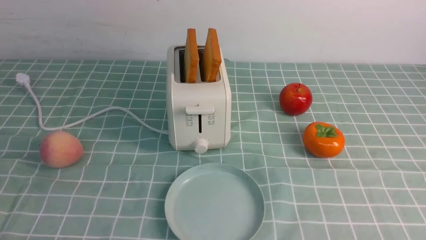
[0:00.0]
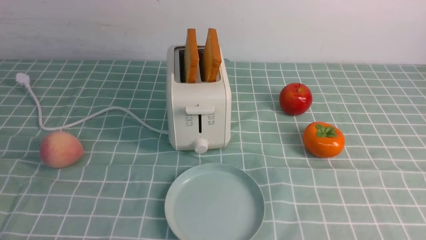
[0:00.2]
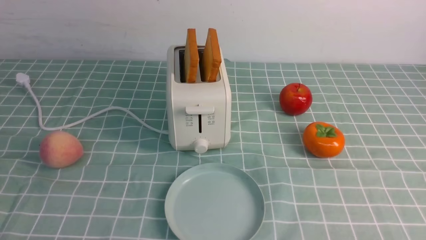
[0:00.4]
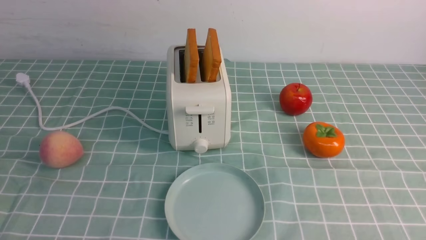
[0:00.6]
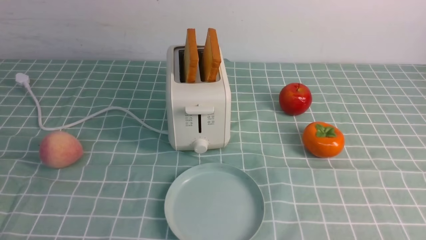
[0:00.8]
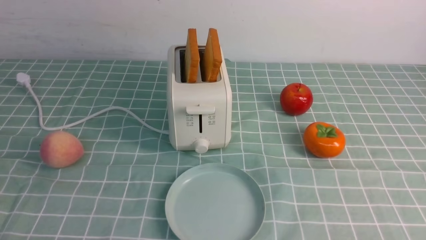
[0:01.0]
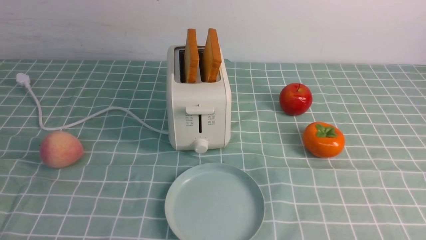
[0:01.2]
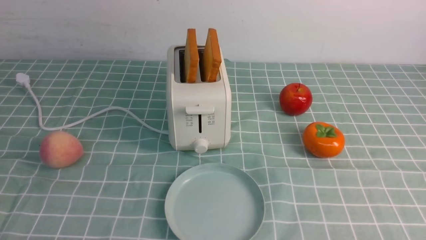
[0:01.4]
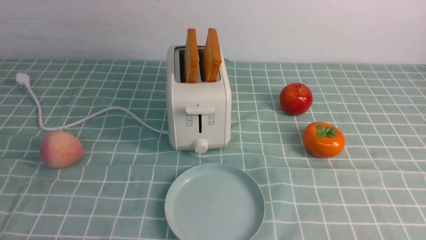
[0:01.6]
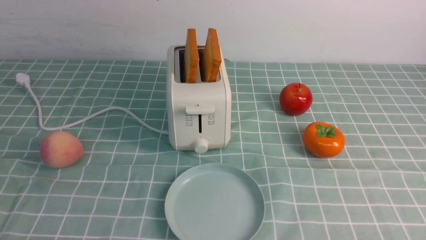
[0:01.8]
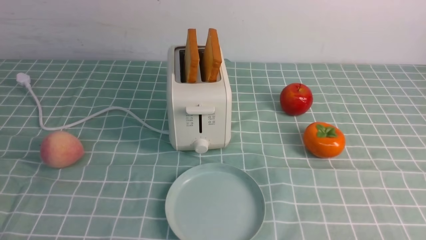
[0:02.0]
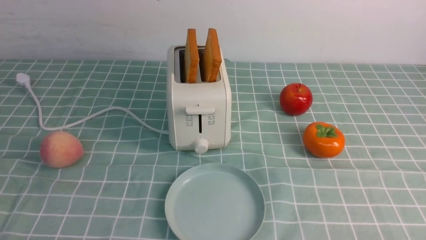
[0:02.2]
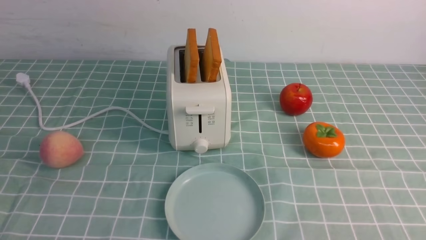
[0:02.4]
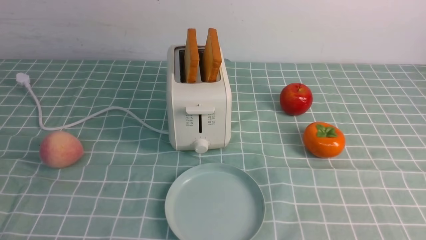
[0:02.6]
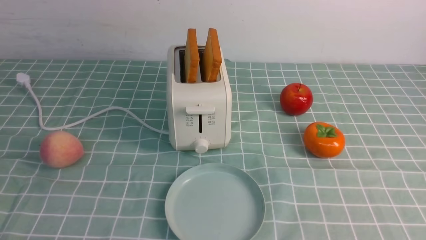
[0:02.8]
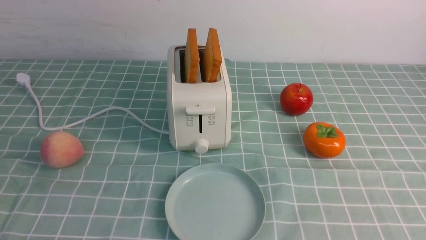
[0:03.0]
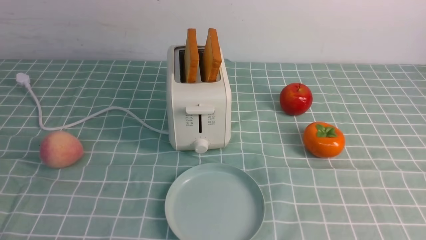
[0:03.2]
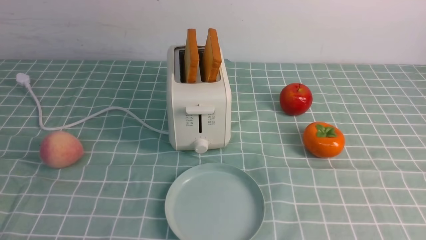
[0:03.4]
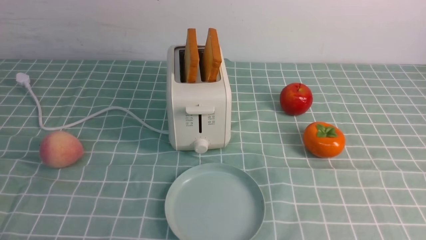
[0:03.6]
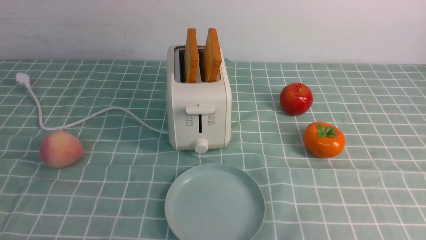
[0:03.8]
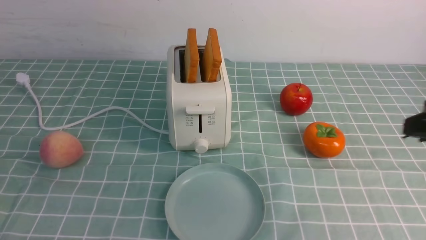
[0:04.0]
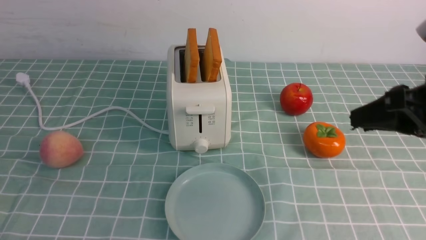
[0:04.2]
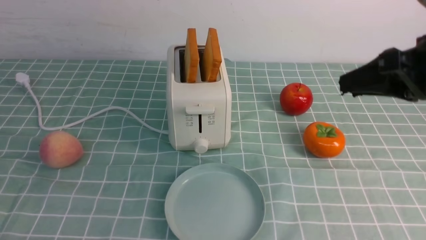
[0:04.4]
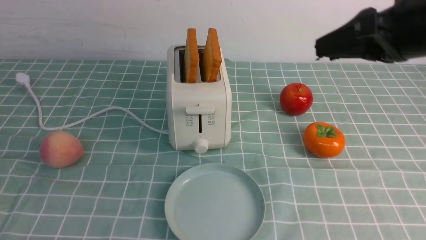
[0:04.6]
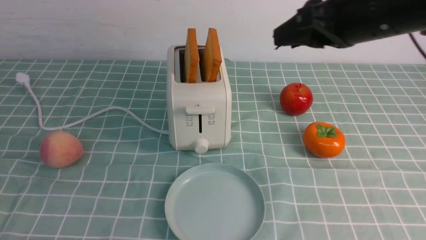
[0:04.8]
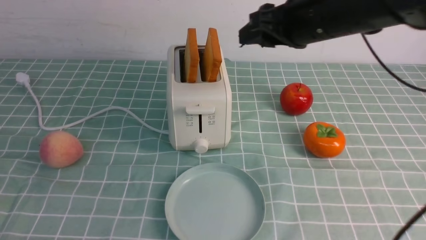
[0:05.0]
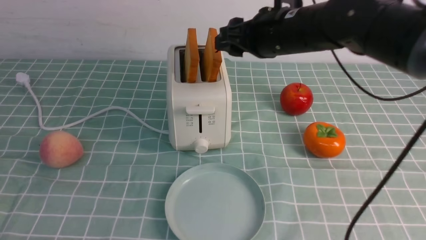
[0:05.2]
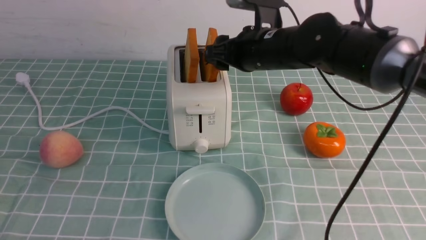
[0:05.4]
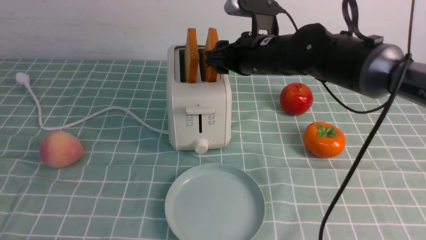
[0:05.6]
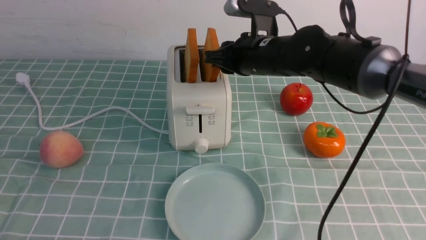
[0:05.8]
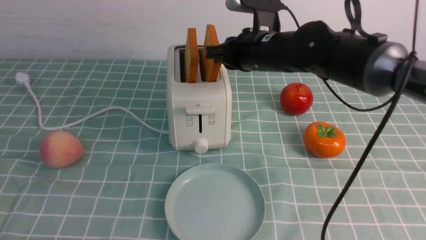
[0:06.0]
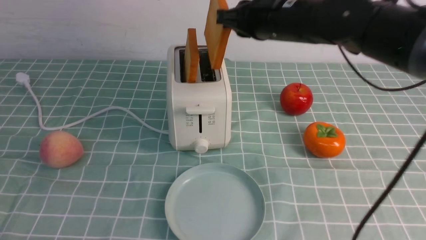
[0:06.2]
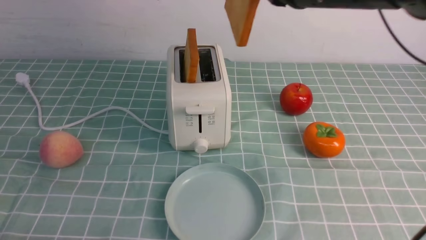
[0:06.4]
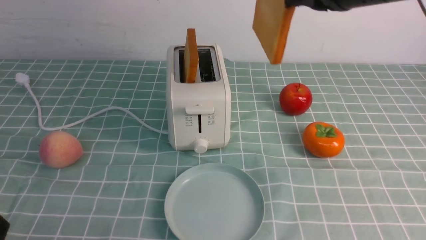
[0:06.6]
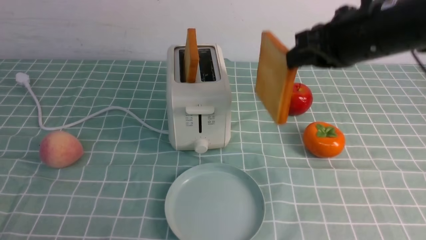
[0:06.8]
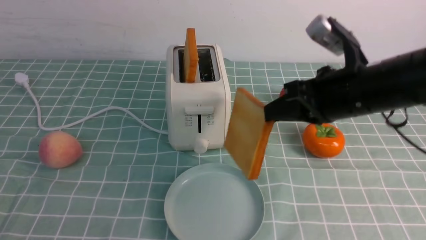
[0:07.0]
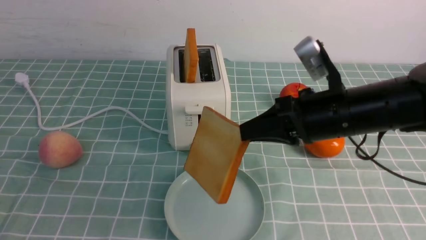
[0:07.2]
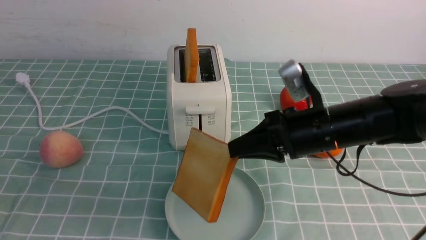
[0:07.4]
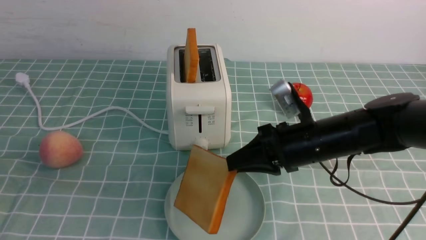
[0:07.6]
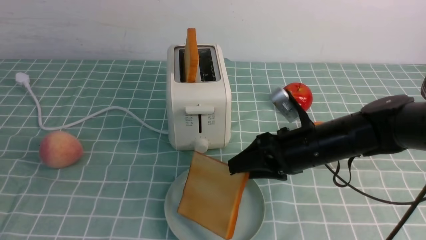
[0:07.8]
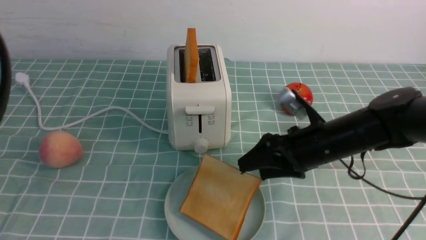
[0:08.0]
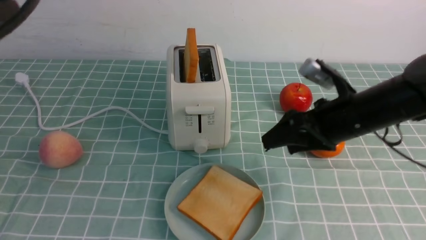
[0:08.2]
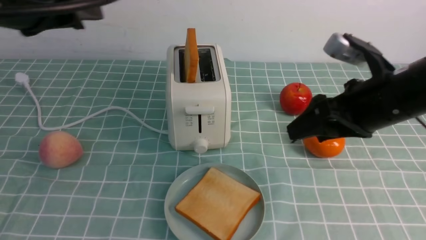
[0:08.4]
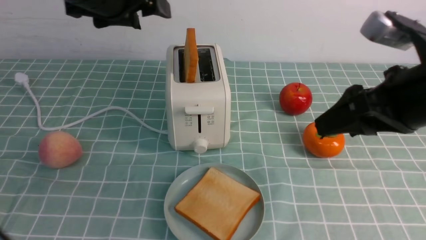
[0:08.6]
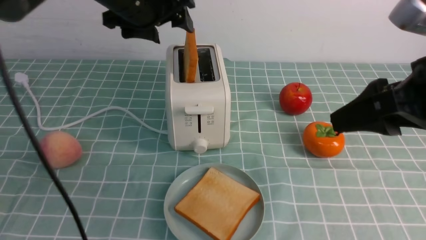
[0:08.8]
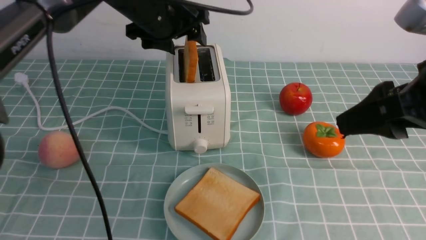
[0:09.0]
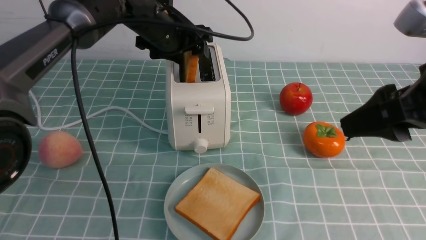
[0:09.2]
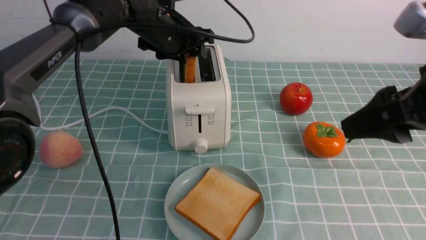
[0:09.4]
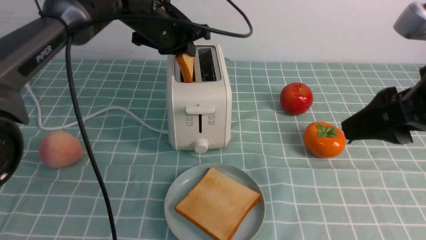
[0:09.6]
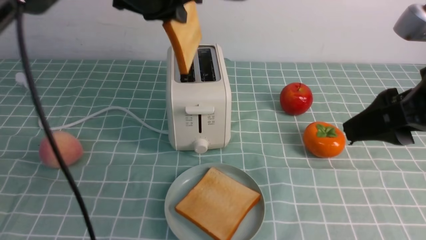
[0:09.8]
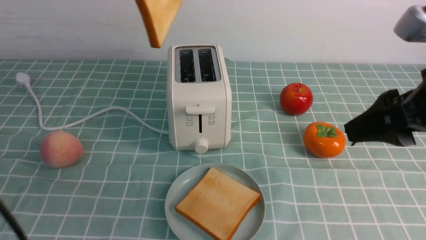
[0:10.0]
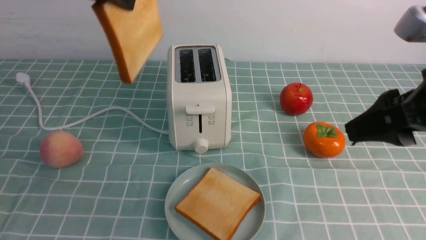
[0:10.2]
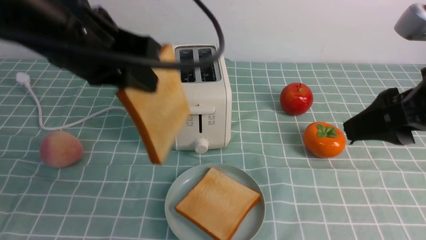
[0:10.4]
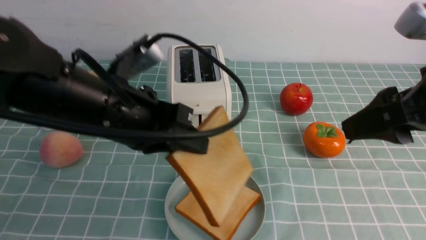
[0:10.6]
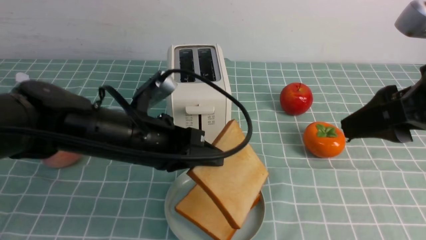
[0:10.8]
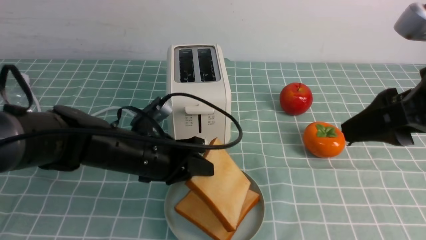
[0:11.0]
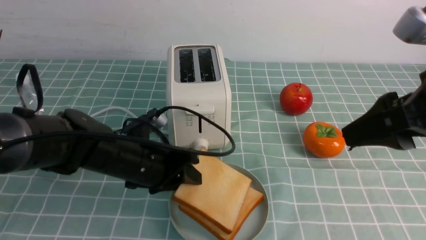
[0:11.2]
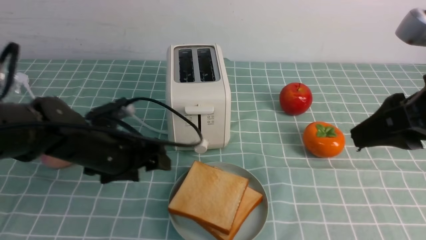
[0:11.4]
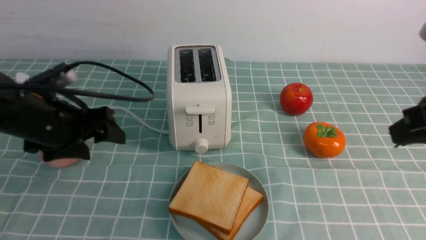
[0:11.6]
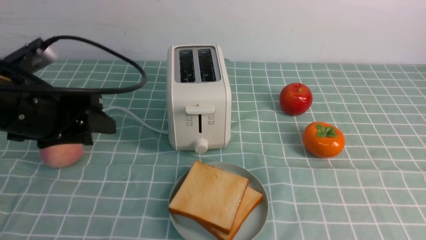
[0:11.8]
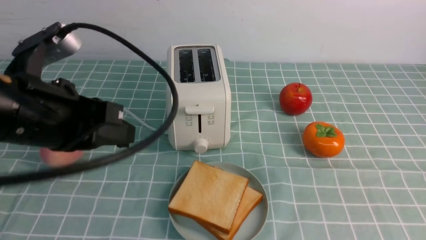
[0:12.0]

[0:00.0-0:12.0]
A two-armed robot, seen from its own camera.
Task of the whole recording: take toasted bread from bread machine on blue coffee table place on plate.
Step, 0:00.0 to 0:06.2: use the right arm to take out a slice of bread.
Step, 0:06.4 to 0:08.0: use the right arm to put a slice of bread into the plate.
Step, 0:08.2 to 0:09.8: use the left arm to take out a slice of bread.
Step, 0:10.0 to 0:11.6: use the left arm to put a slice of bread into the empty plate.
0:00.0 to 0:01.6: The two grippers keep their place.
0:03.0 to 0:04.4: The right gripper is displaced forward by roughly 25 cm.
0:04.4 to 0:06.0: The right gripper is displaced forward and to the left by approximately 20 cm.
0:06.0 to 0:07.6: The left gripper goes approximately 20 cm upward; the right gripper shifts approximately 15 cm downward, backward and to the right.
0:07.6 to 0:09.0: The right gripper heads upward, backward and to the right, covering about 20 cm, and opens its fingers. The left gripper travels forward and to the right by roughly 40 cm, and opens its fingers.
0:09.0 to 0:10.4: The left gripper travels backward by about 15 cm, and closes up.
0:10.4 to 0:12.0: The right gripper shifts approximately 15 cm backward, downward and to the right, and closes up; the left gripper travels backward and to the left by approximately 10 cm, goes downward and returns, about 20 cm each way, and opens and closes again.

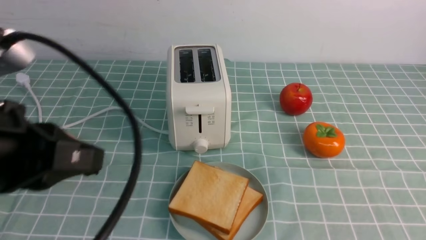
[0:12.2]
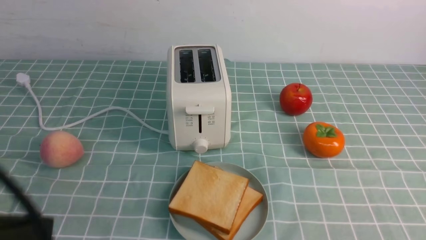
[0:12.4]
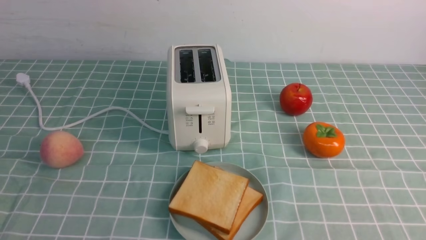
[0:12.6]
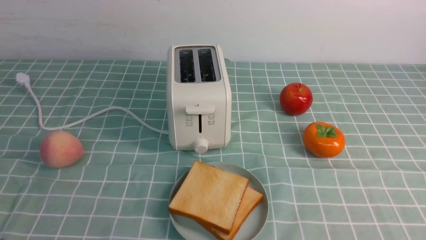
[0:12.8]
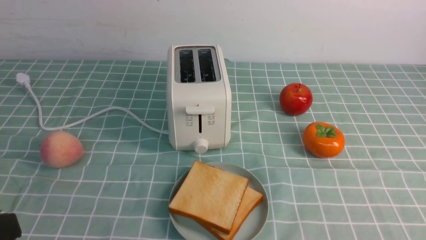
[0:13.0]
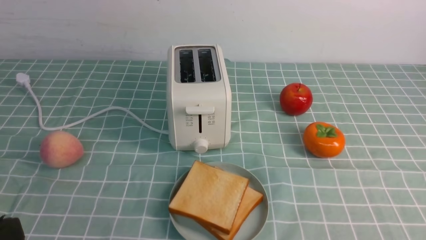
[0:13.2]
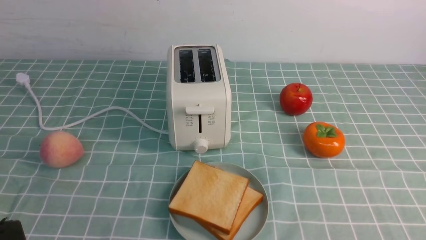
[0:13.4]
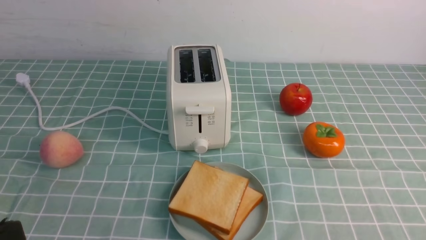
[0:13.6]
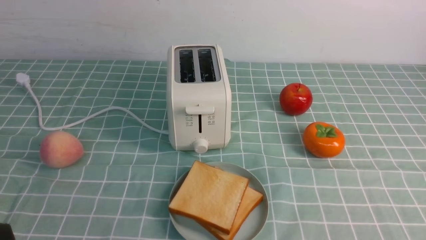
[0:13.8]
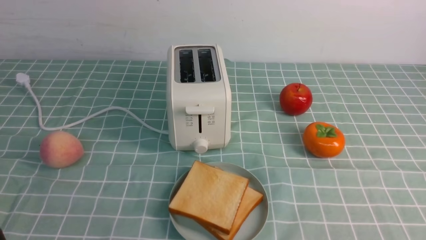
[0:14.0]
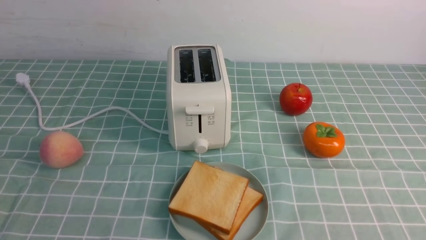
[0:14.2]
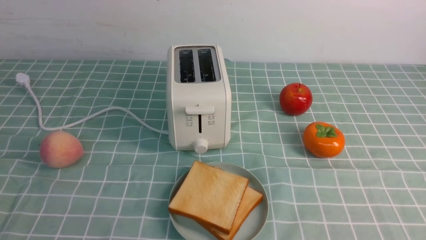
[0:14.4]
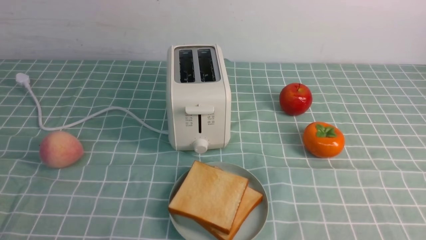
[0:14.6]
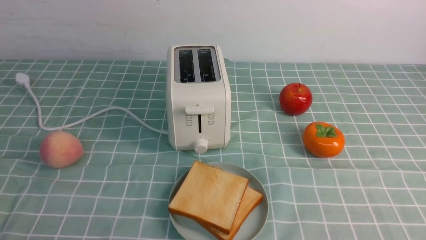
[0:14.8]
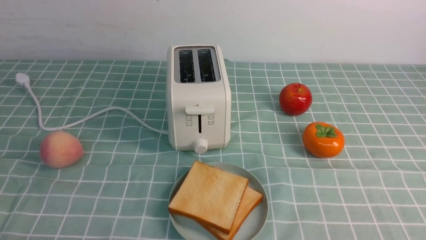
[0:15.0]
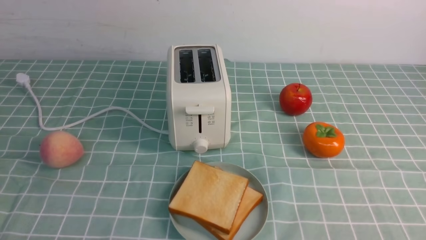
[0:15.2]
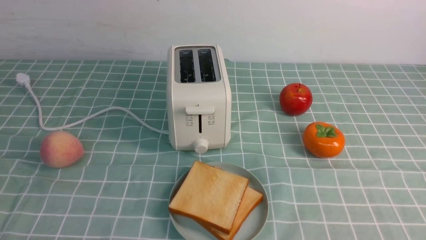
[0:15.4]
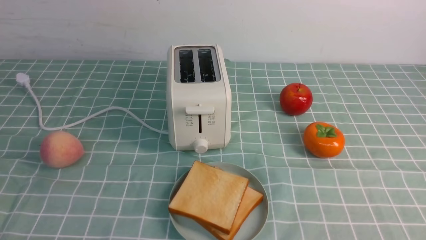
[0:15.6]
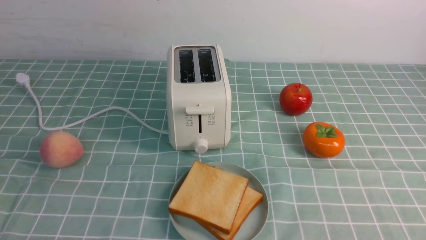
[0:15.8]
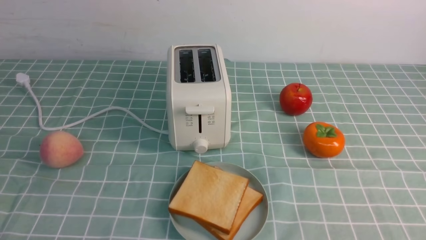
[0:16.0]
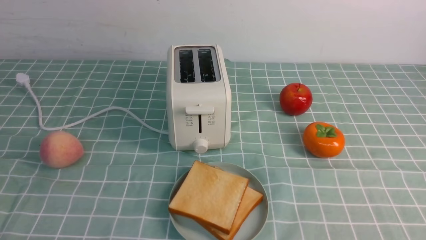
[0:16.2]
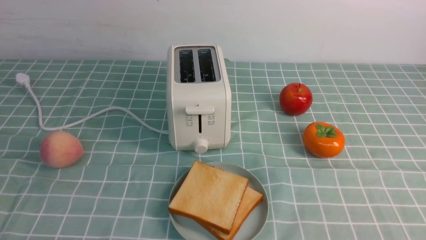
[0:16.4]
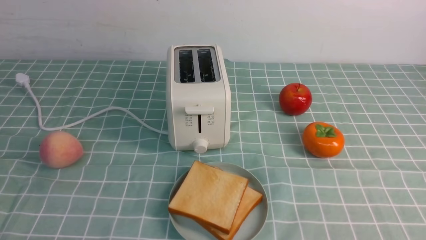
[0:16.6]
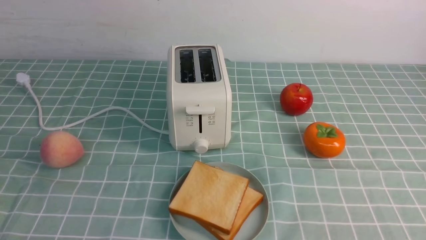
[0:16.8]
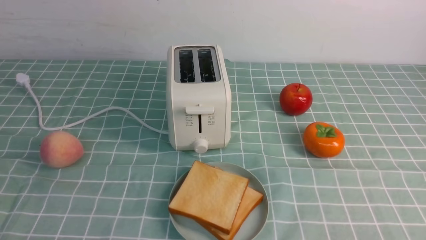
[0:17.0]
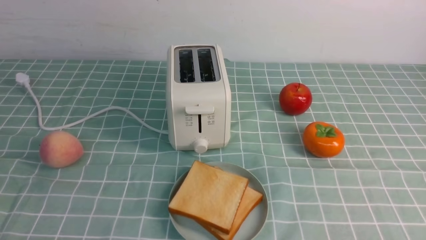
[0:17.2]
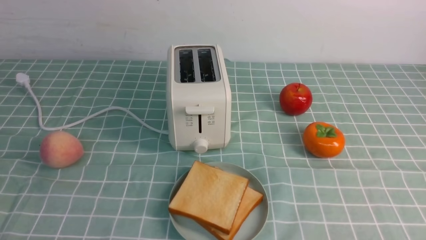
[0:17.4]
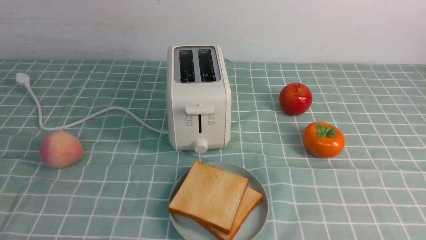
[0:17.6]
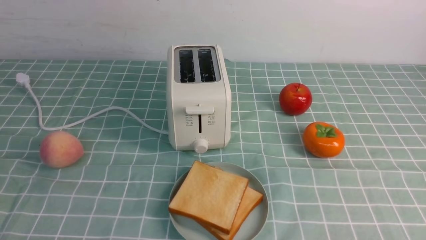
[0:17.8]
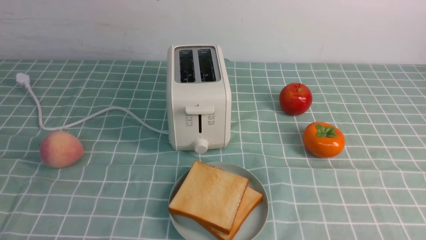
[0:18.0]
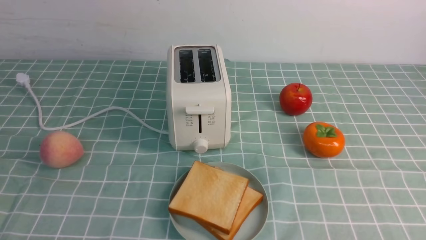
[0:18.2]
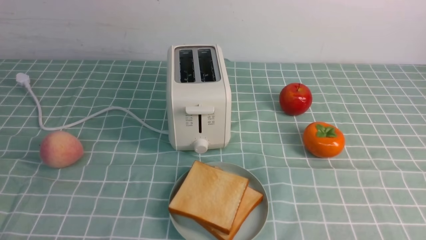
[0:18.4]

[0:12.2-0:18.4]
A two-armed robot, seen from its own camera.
Task of the whole recording: take toasted bread from bread machine on blue coffee table place on plate.
0:12.2 to 0:13.8: The left gripper shifts roughly 10 cm backward.
